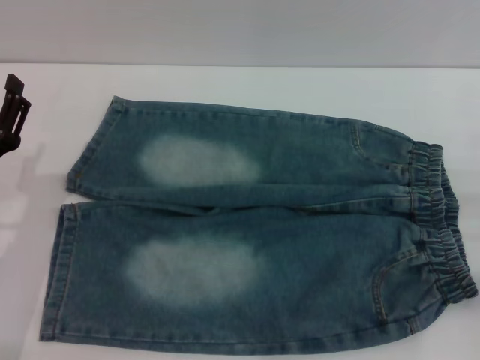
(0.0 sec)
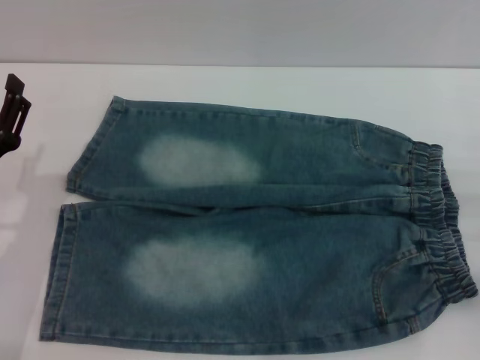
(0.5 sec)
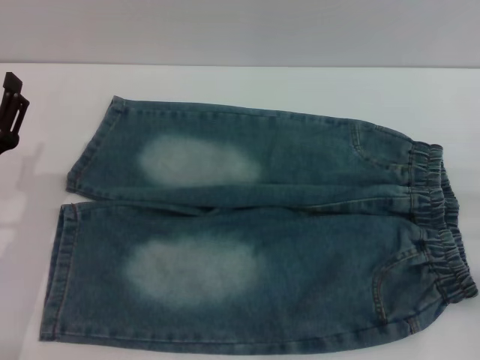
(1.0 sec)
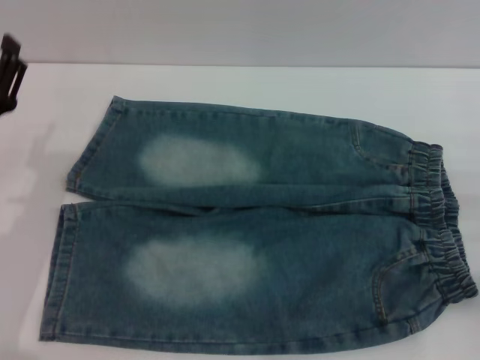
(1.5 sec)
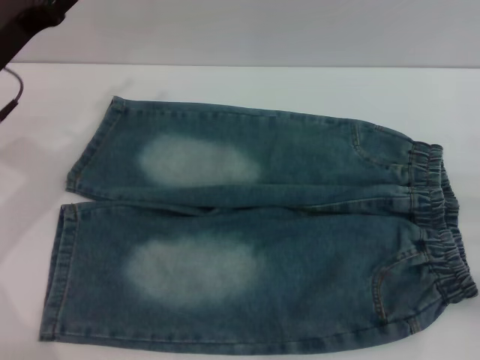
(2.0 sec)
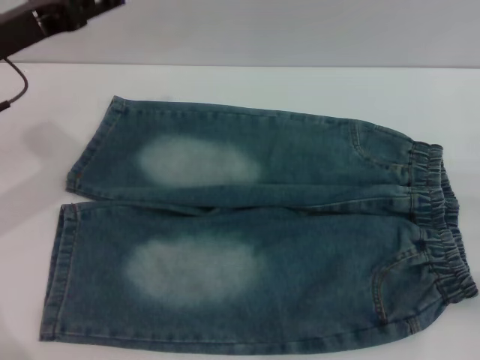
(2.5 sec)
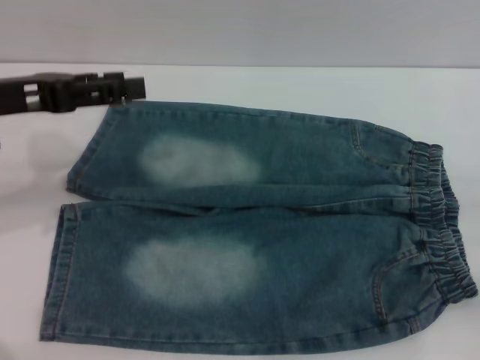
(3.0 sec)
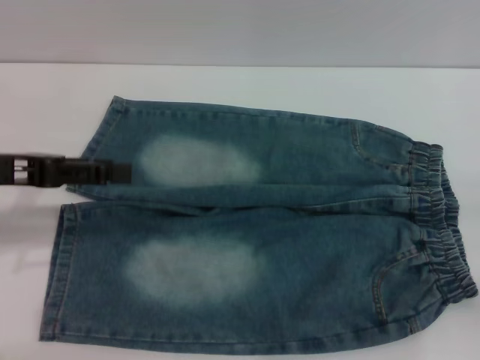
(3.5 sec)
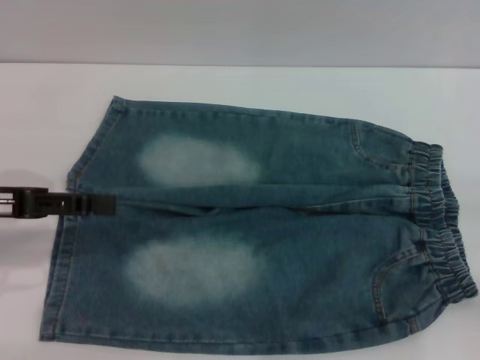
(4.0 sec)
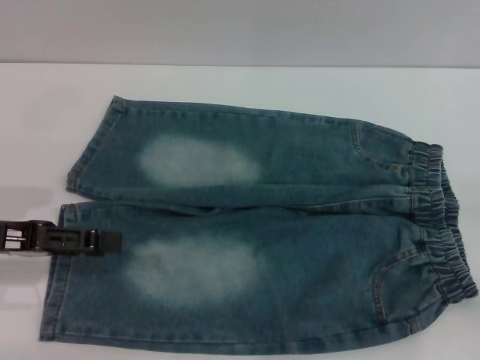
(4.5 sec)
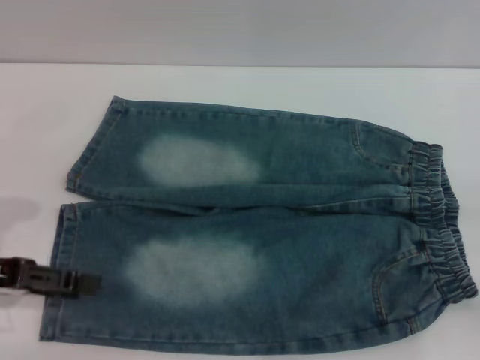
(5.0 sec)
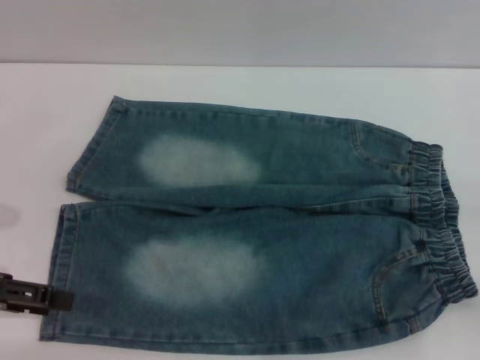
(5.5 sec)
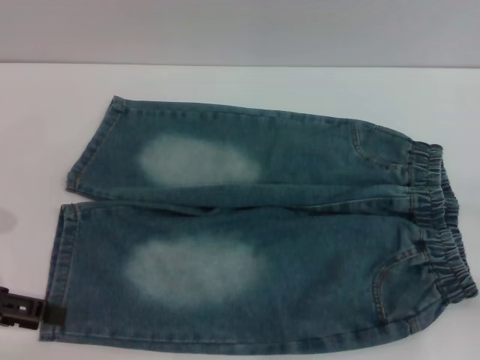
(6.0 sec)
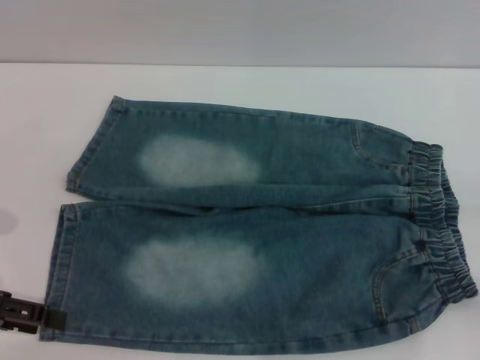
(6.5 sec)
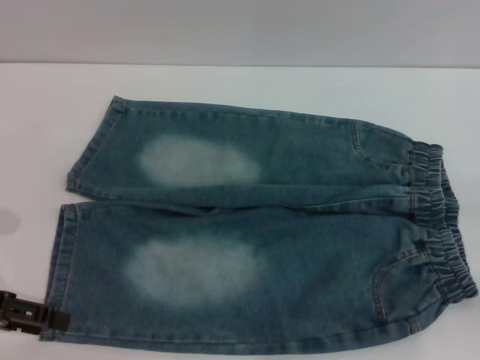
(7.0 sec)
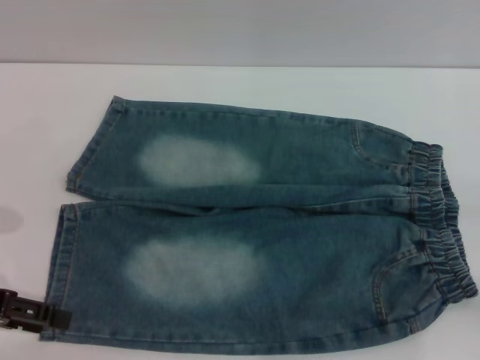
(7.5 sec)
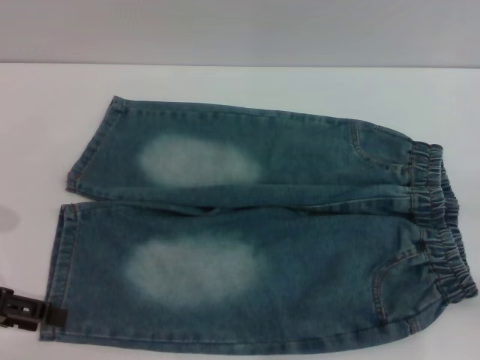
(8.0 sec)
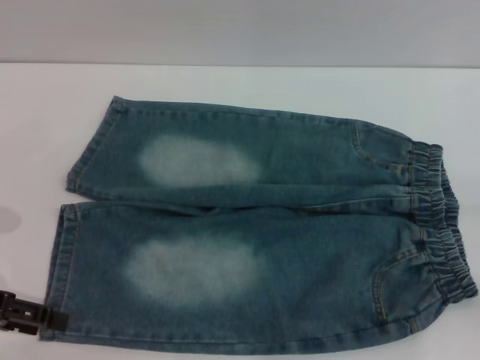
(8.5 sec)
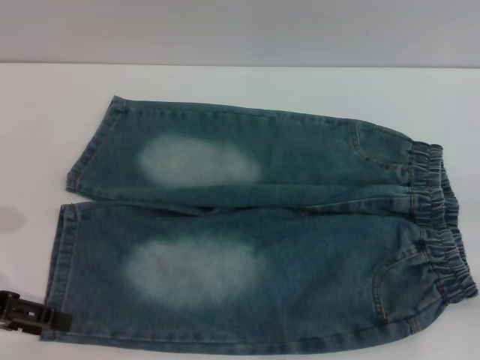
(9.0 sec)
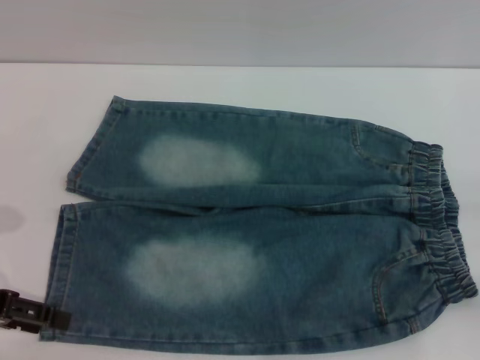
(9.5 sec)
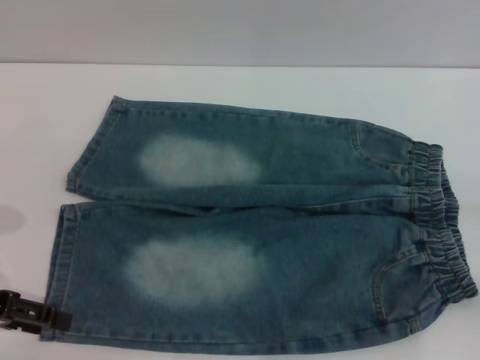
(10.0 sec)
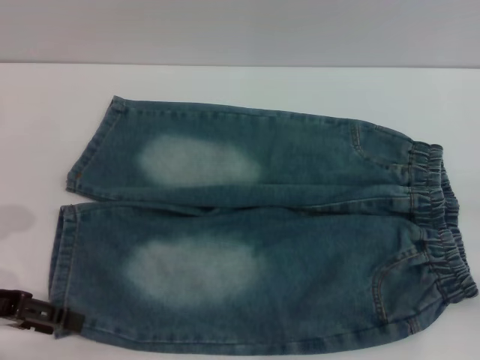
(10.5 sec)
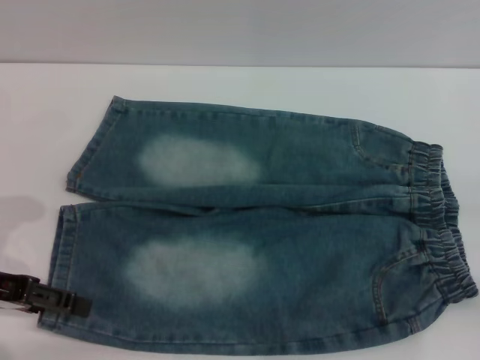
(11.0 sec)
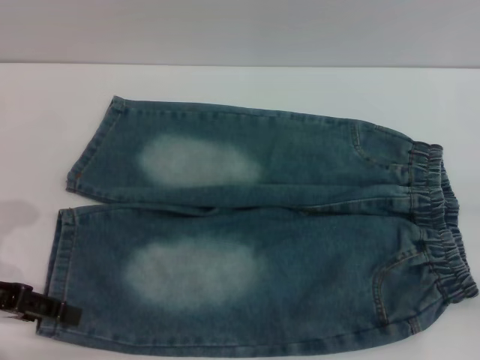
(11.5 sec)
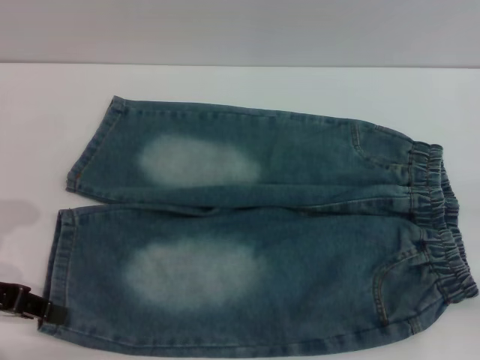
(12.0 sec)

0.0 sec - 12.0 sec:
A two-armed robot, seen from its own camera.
0.0 sec - 2.0 sec: The left gripper moves forward and upward, about 15 cm.
2.0 sec - 4.0 sec: The left gripper moves backward, roughly 10 cm.
4.0 sec - 6.0 sec: The left gripper shifts by some 5 cm.
6.0 sec - 8.0 sec: Neither gripper changes place.
8.0 sec - 10.0 sec: The two grippers keep their place.
10.0 sec - 12.0 sec: The left gripper closes.

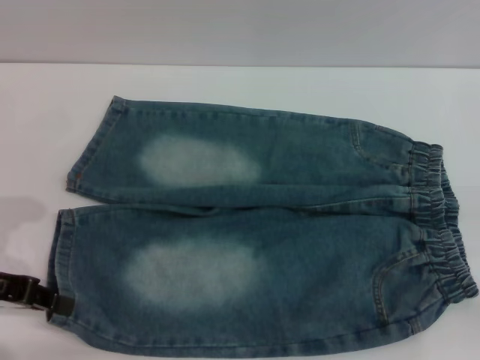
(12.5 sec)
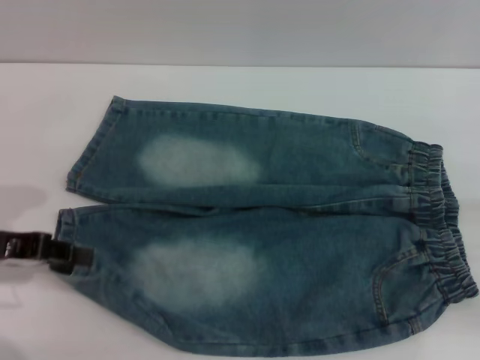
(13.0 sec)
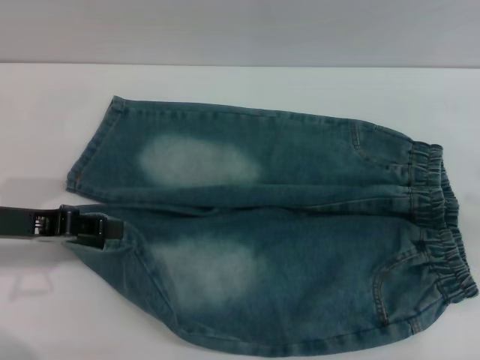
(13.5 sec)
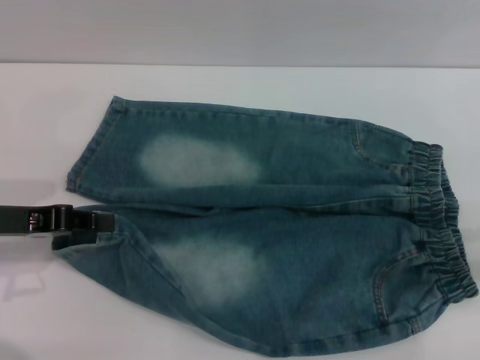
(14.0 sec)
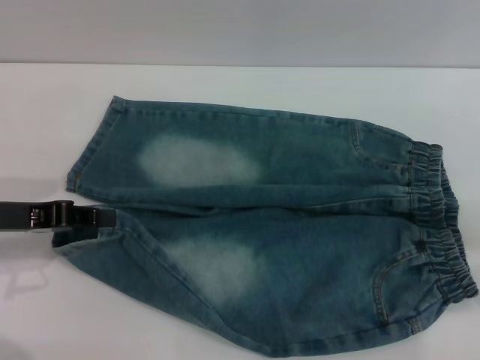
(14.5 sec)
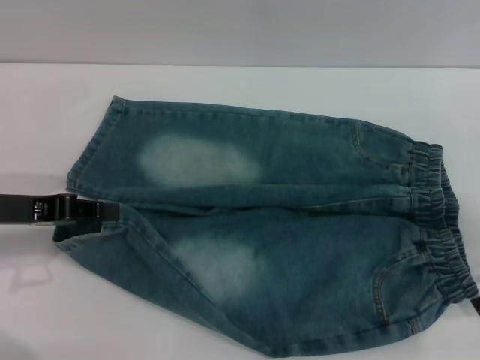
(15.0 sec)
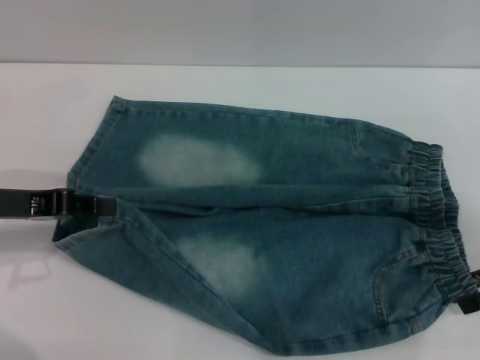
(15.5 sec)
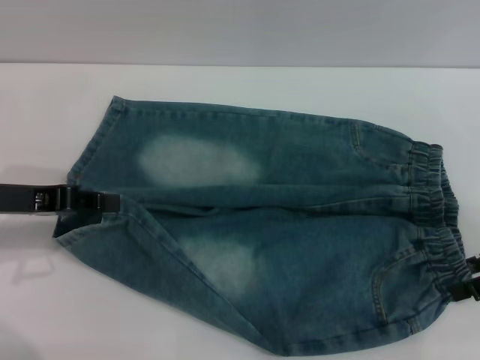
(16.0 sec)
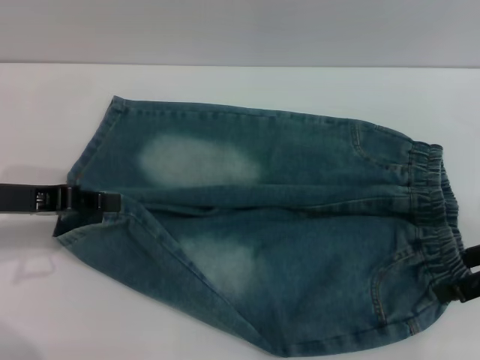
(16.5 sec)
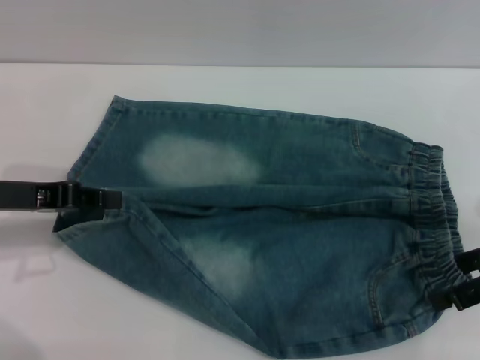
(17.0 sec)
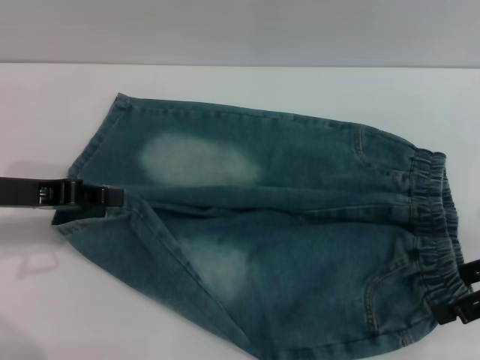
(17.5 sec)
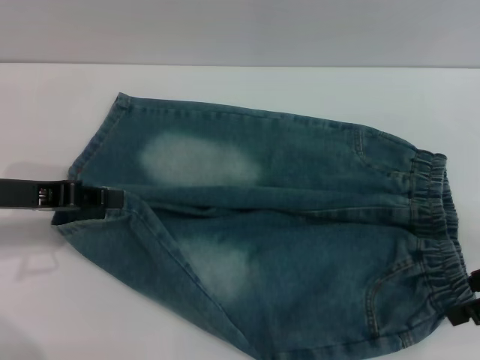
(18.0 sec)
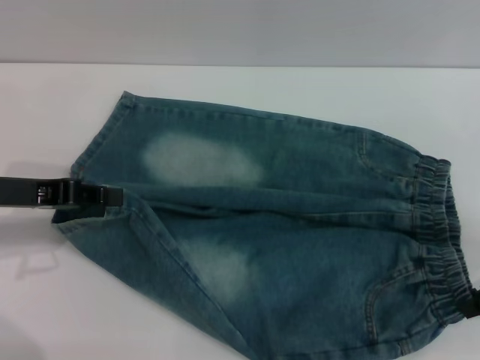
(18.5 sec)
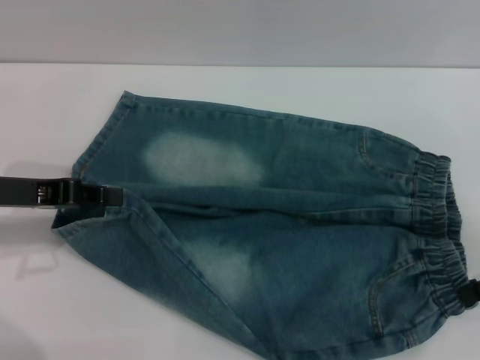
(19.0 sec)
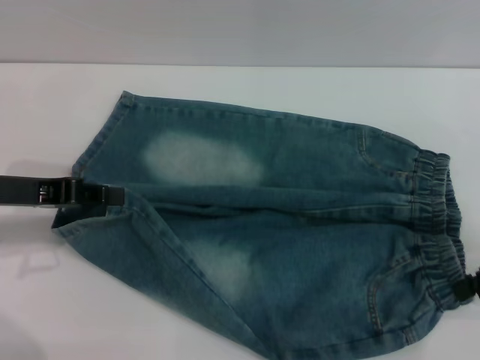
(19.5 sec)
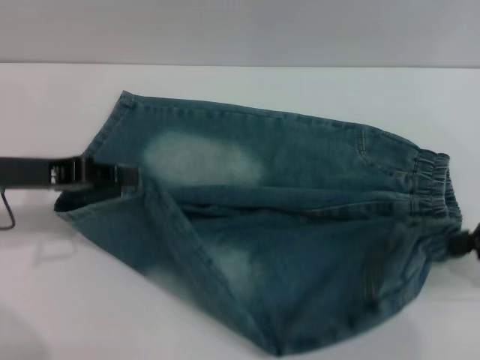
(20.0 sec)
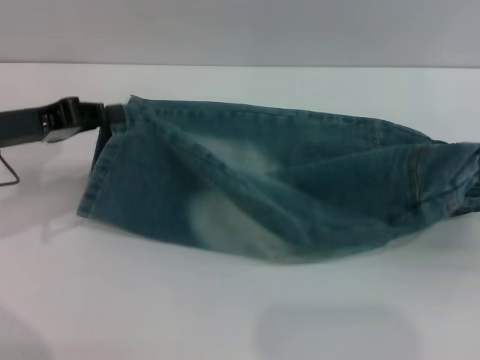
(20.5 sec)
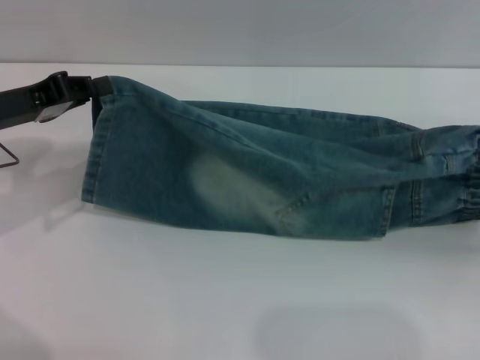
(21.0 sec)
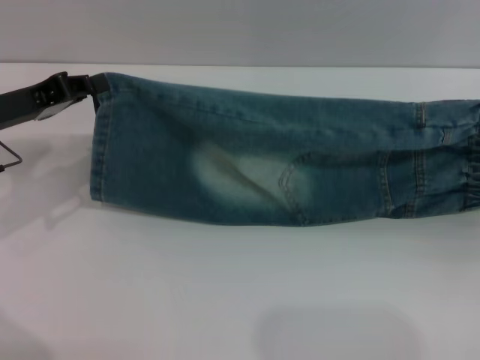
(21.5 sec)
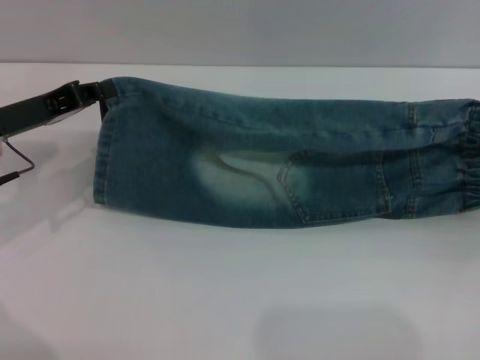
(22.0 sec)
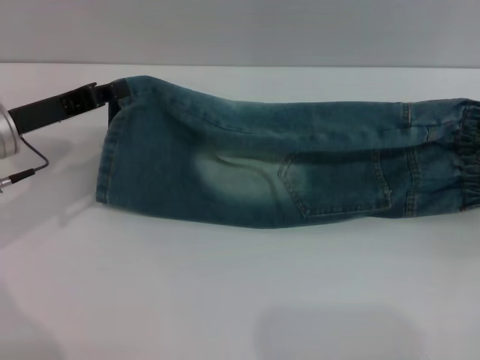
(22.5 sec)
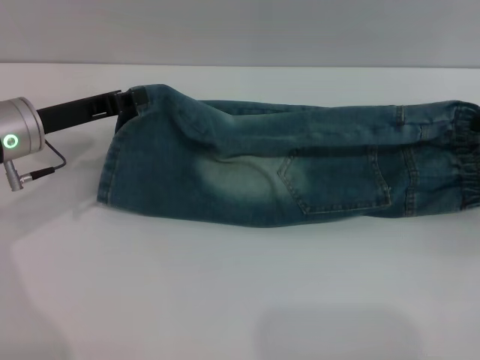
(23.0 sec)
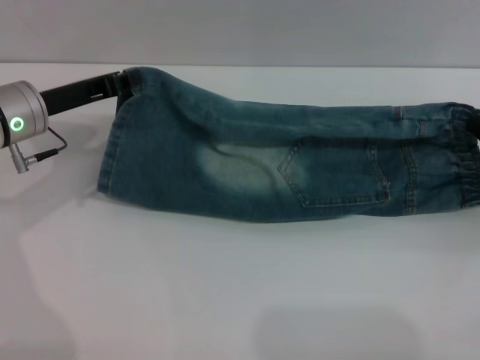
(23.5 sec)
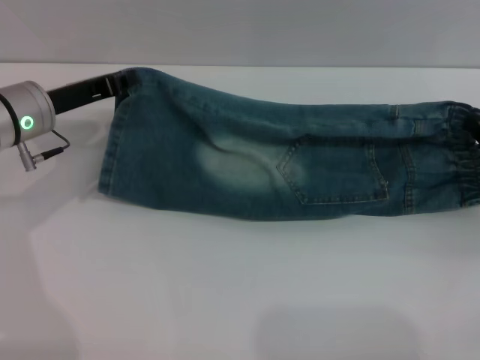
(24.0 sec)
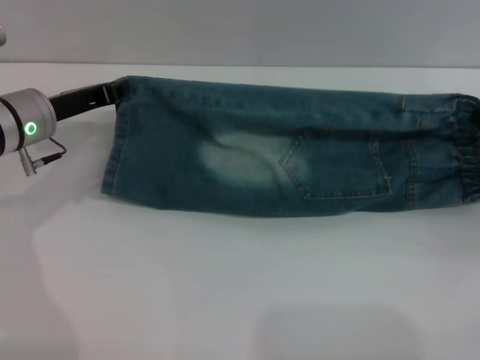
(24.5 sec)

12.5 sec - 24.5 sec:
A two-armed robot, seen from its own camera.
12.5 sec - 14.5 sec: The right gripper shifts some 10 cm upward and forward.
14.5 sec - 16.5 sec: The right gripper moves to the left, approximately 5 cm.
16.5 sec - 18.5 sec: The right gripper closes up.
18.5 sec - 20.5 sec: The right gripper changes place by some 5 cm, and closes its fingers.
20.5 sec - 22.5 sec: The right gripper moves forward, about 5 cm.
22.5 sec - 24.5 sec: The left gripper changes place by about 5 cm.

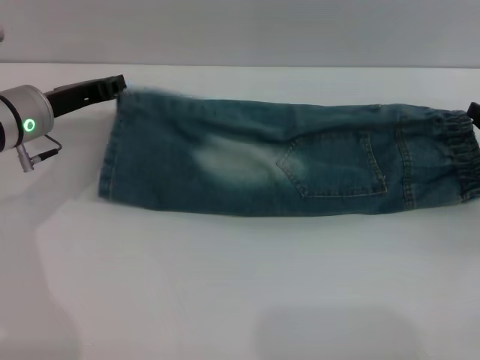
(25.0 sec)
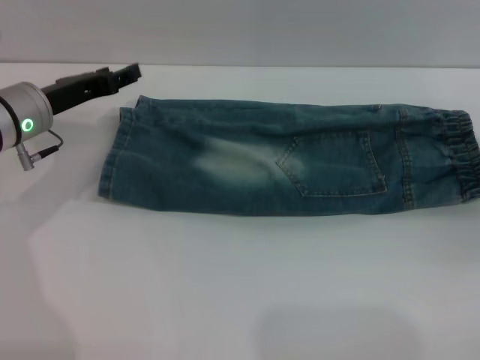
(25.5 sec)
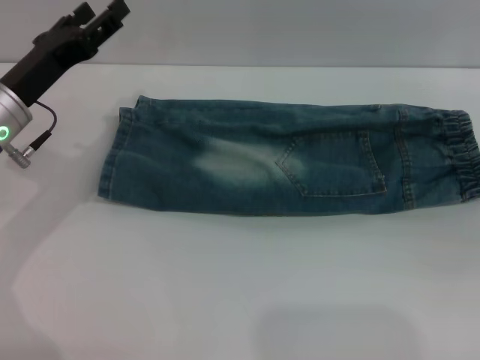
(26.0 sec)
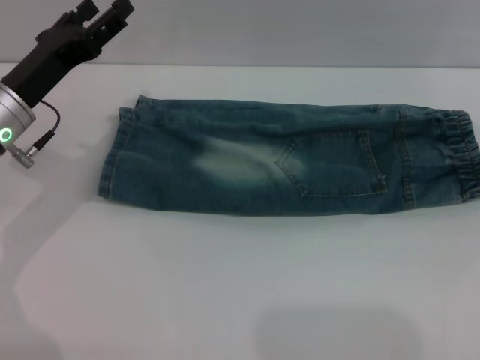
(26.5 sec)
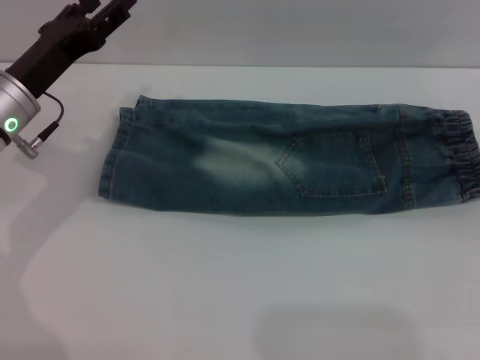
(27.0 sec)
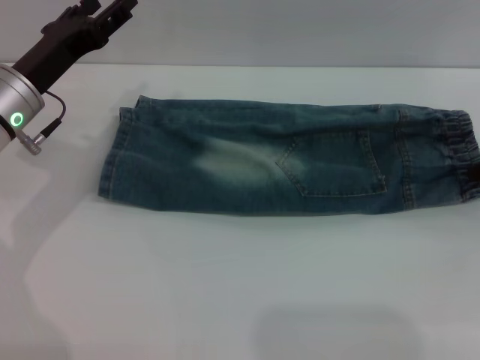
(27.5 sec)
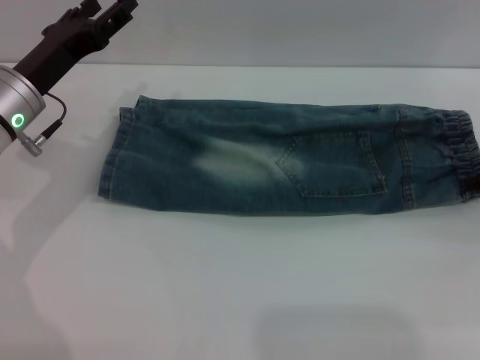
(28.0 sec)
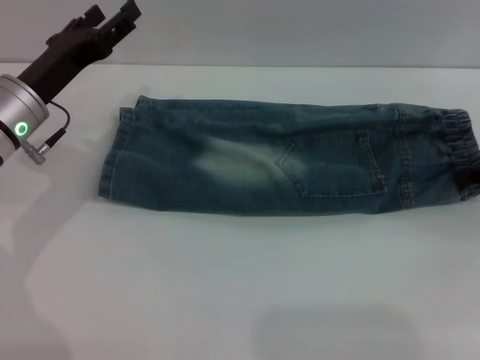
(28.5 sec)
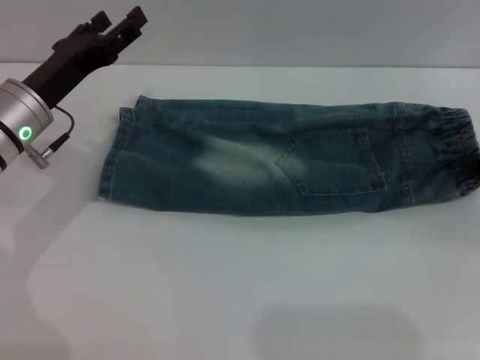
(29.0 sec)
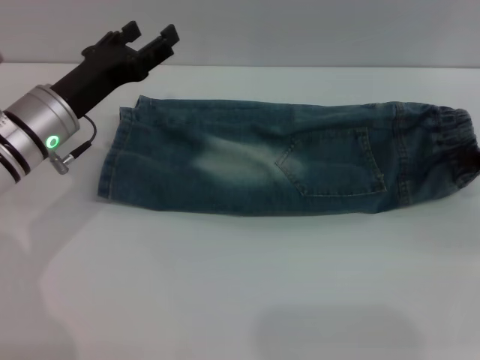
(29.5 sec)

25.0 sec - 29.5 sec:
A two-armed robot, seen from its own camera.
25.0 sec - 27.0 sec: The right gripper shifts about 10 cm upward, and opens up. The left gripper opens up.
27.0 sec - 29.5 sec: The right gripper moves some 5 cm, and closes its fingers.
